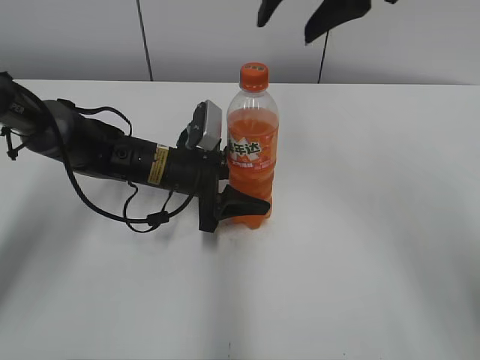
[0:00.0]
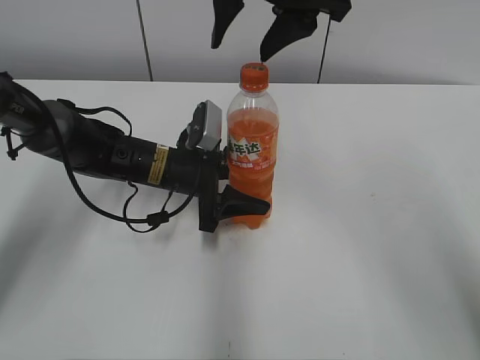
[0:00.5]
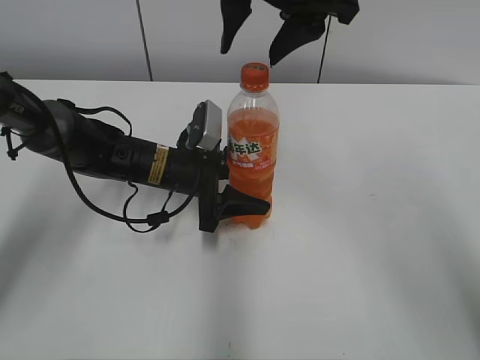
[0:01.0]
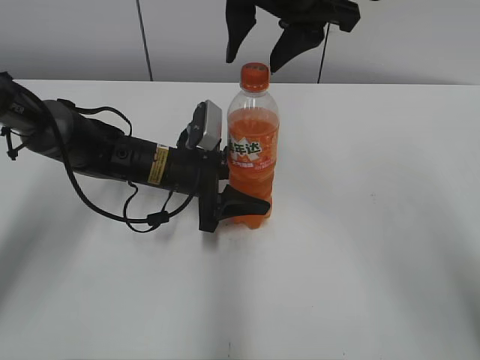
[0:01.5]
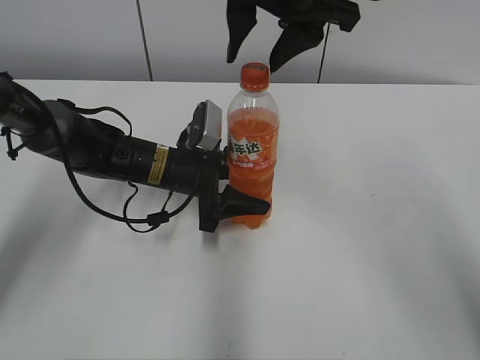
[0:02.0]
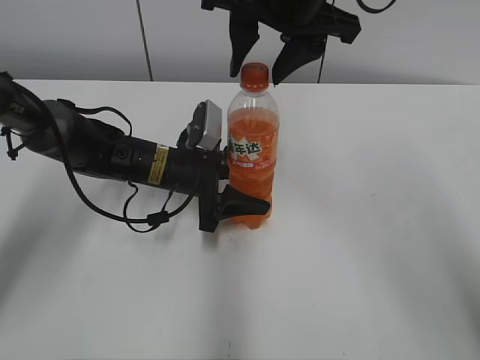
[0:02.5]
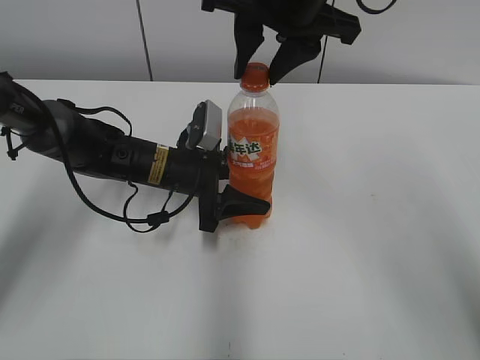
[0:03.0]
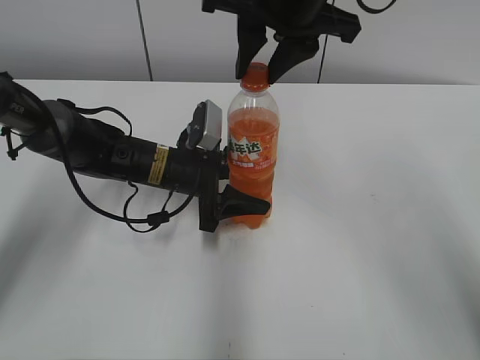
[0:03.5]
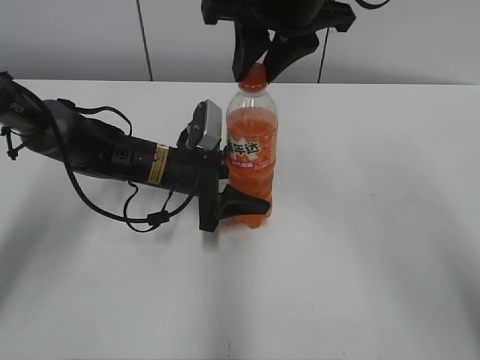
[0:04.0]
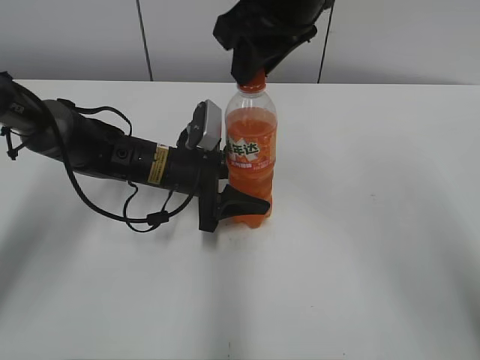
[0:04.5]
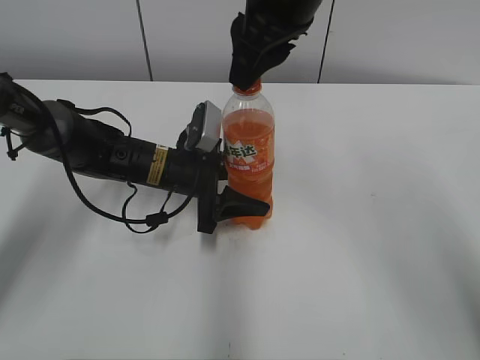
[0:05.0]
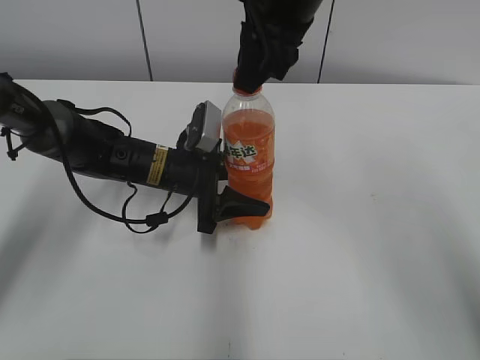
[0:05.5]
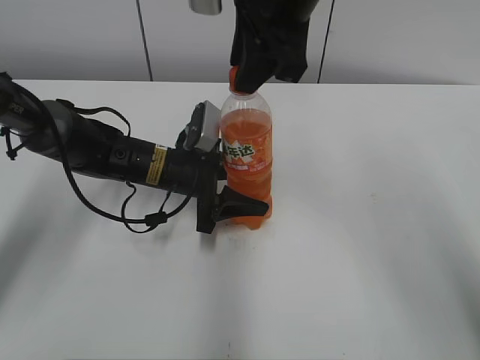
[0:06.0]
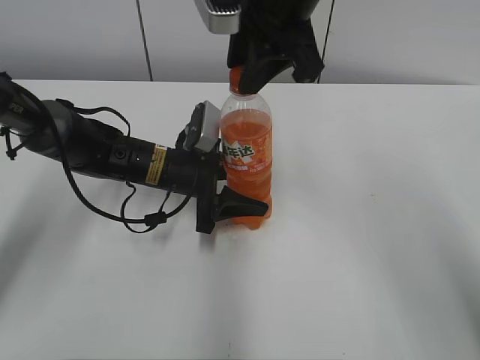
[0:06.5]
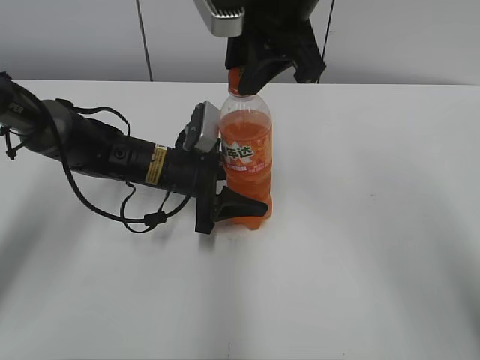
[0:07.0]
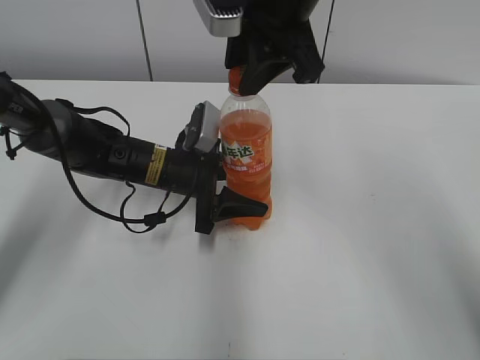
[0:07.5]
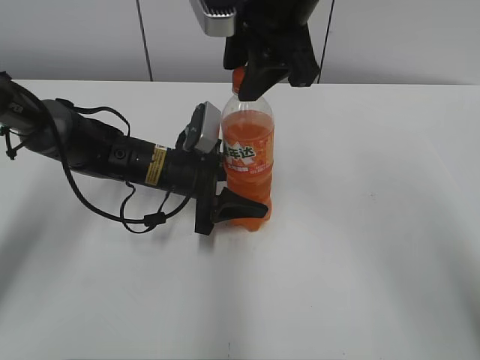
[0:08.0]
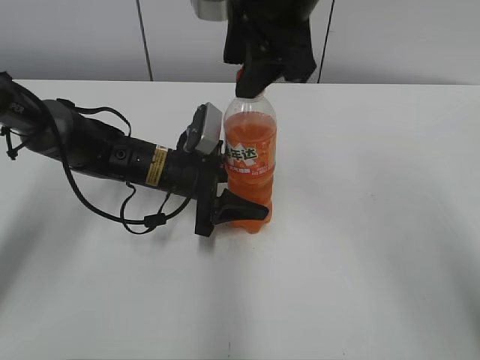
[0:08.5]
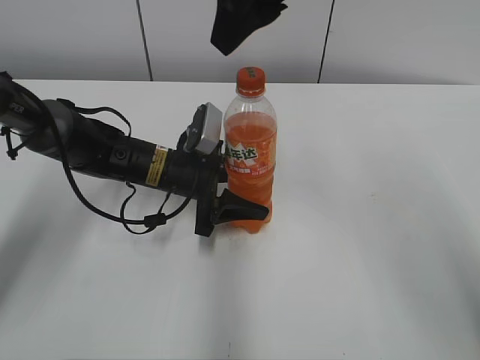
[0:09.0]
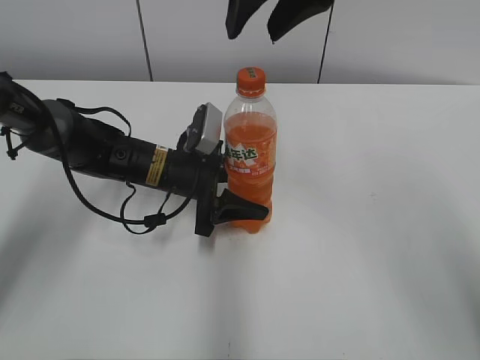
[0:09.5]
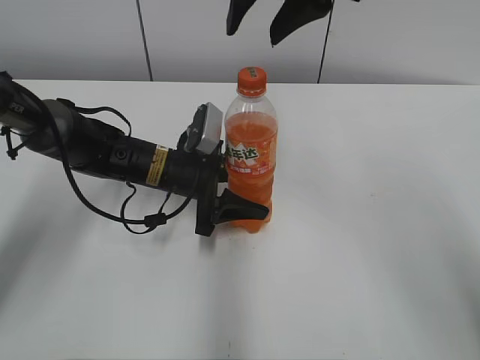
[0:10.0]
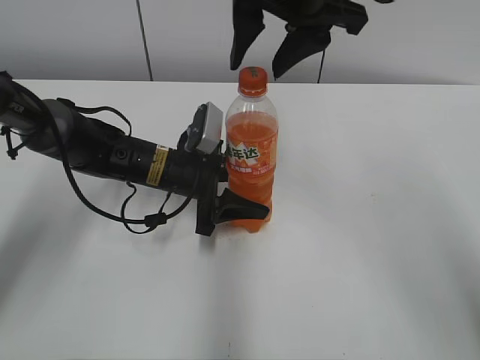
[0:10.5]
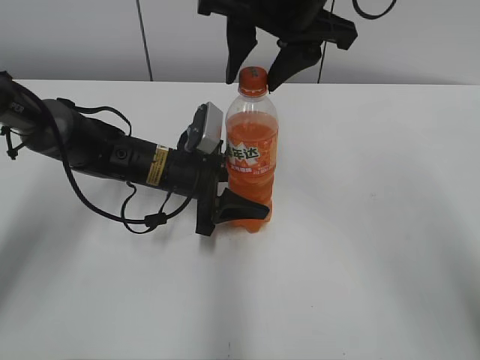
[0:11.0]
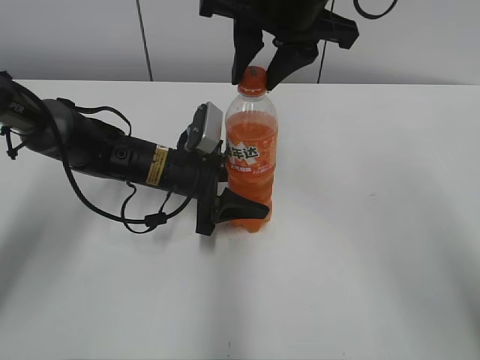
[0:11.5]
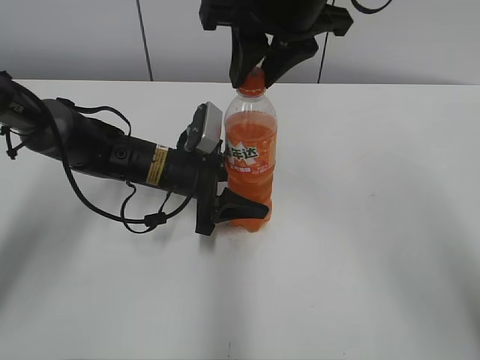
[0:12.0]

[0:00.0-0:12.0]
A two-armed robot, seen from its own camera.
0:00.0 to 0:02.0: The right gripper ends up some 5 cm from where it was.
0:02.0 to 0:04.0: The right gripper closes.
0:06.0 to 0:08.0: The right gripper opens.
0:10.0 to 0:12.0: The right gripper closes its fingers.

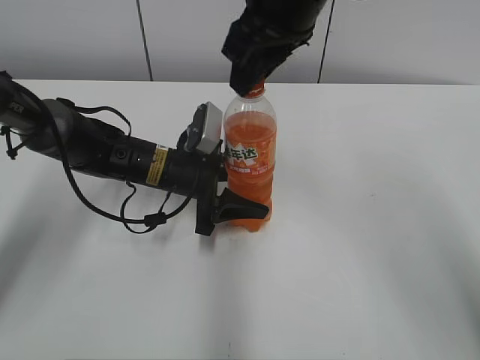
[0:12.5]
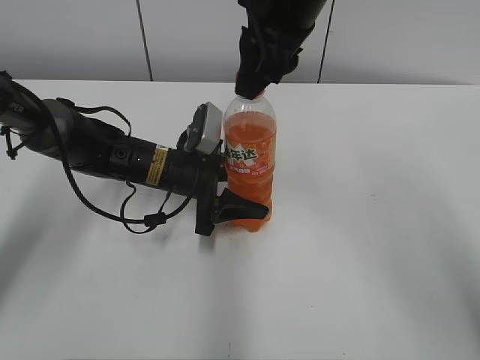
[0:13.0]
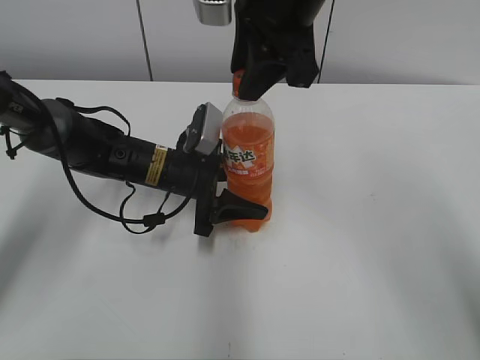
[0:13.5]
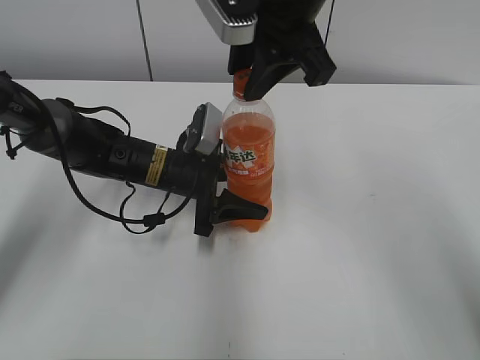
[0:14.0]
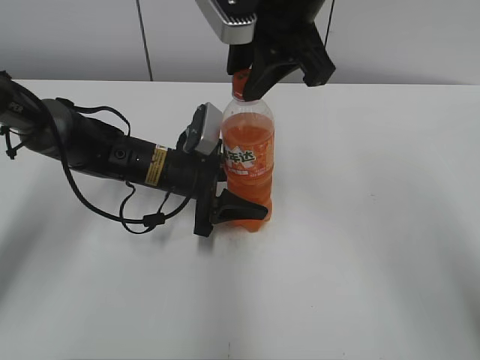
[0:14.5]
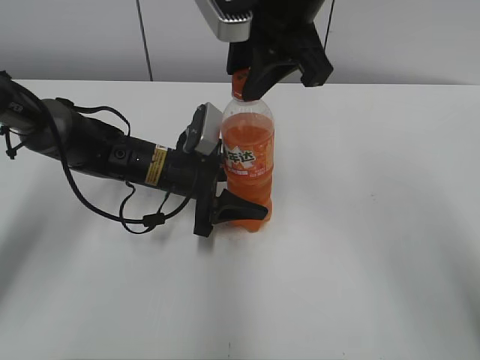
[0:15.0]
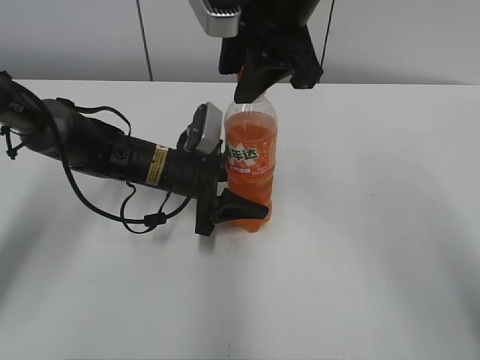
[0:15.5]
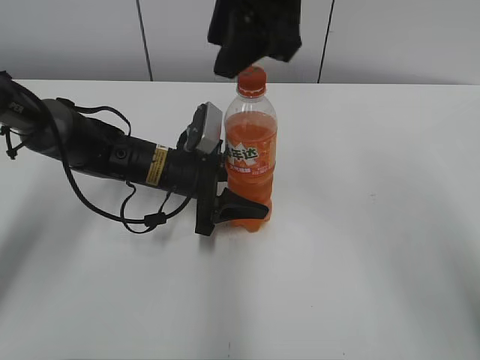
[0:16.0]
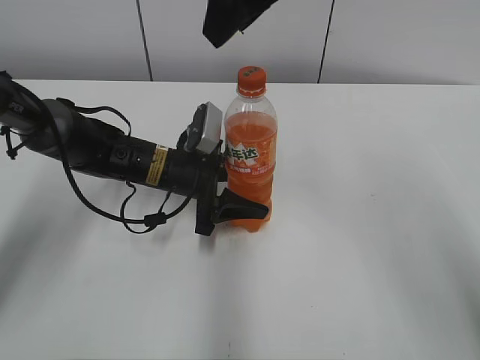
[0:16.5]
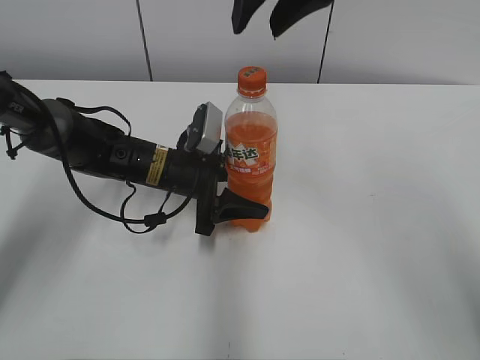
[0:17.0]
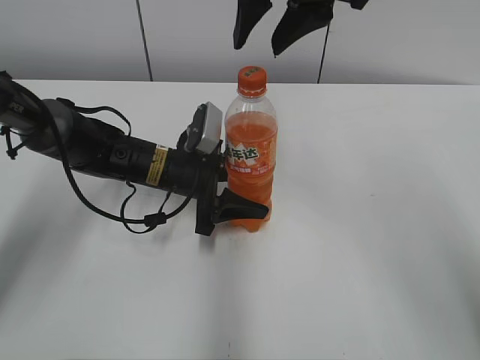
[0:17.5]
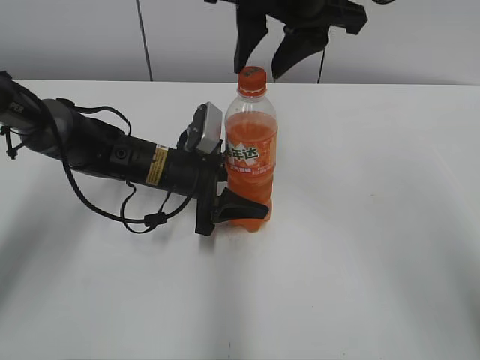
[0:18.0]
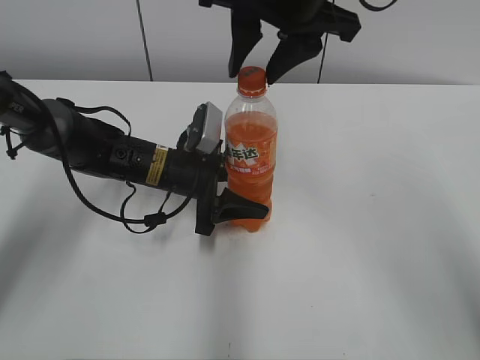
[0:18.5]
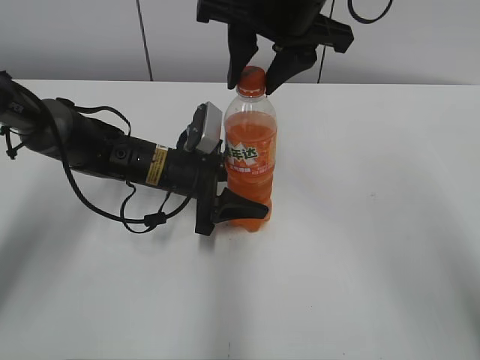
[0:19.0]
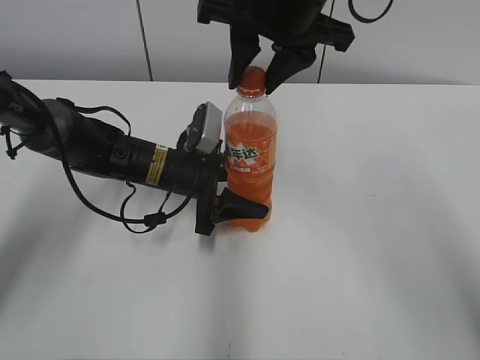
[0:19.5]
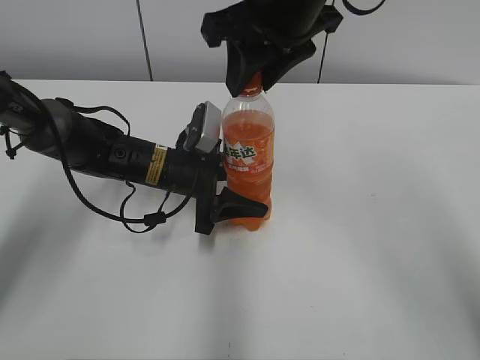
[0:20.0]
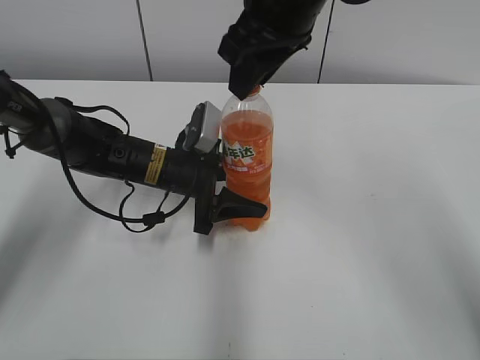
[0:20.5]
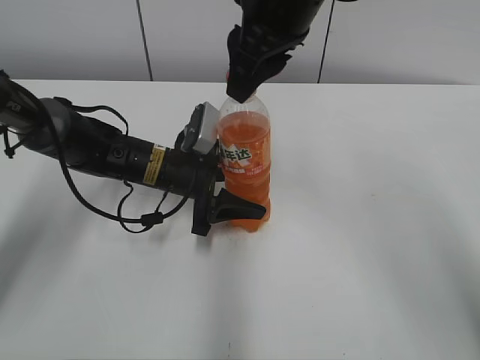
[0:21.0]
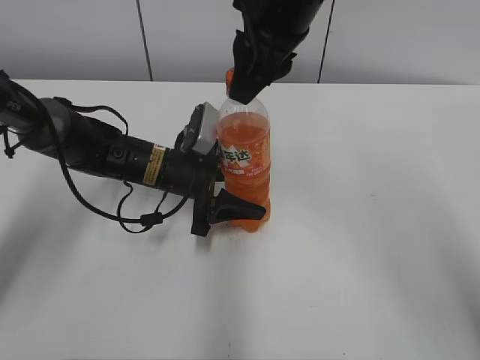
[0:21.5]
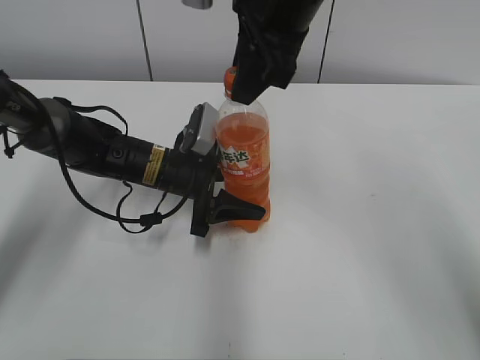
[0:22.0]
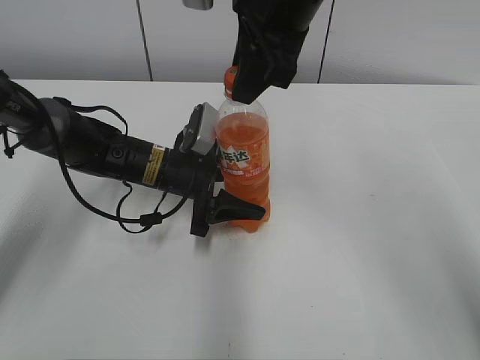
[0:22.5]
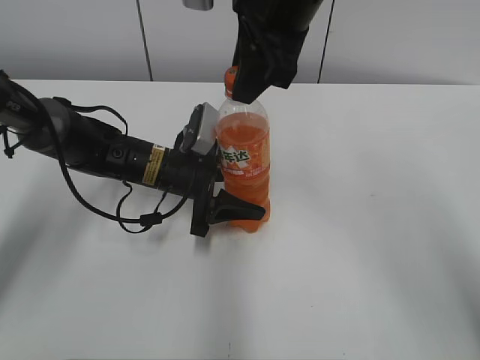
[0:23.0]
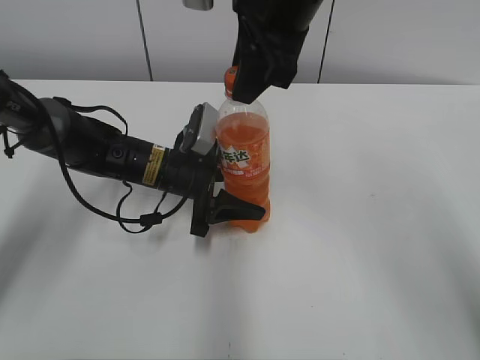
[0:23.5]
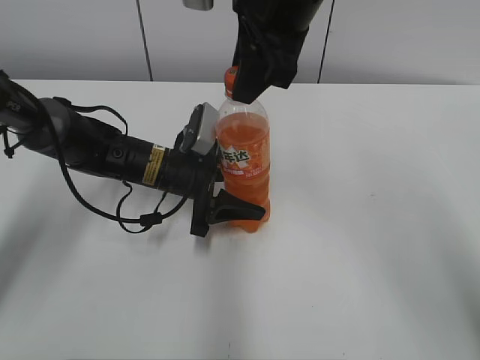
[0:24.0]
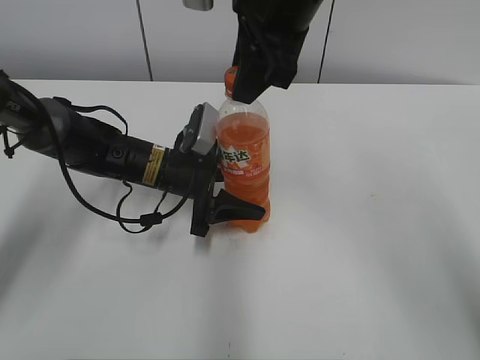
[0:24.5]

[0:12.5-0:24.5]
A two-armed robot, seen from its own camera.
0:14.5 to 0:16.5: The right gripper opens.
0:22.5 to 0:24.5: Neither gripper changes place.

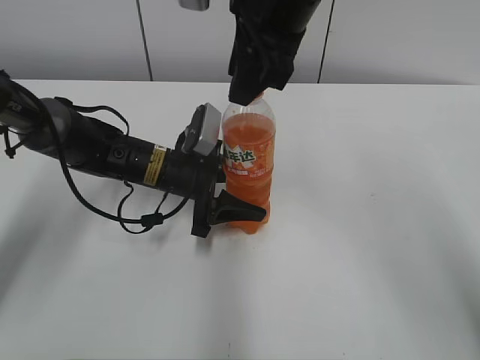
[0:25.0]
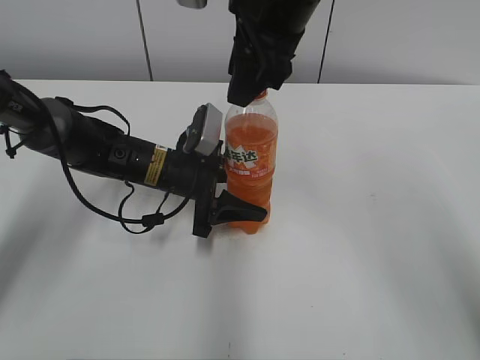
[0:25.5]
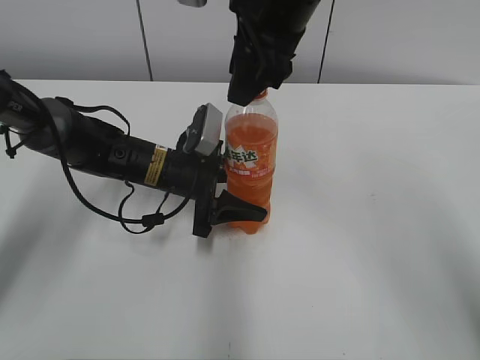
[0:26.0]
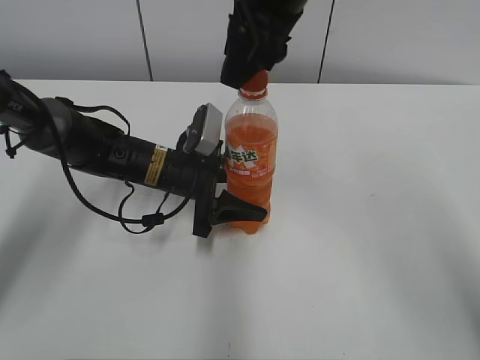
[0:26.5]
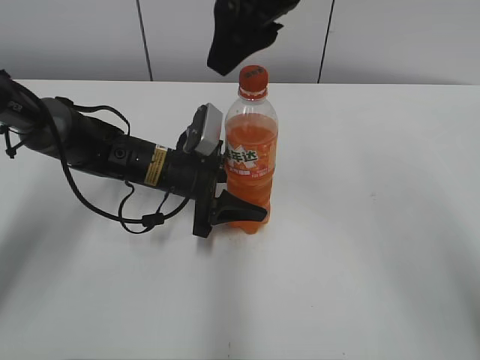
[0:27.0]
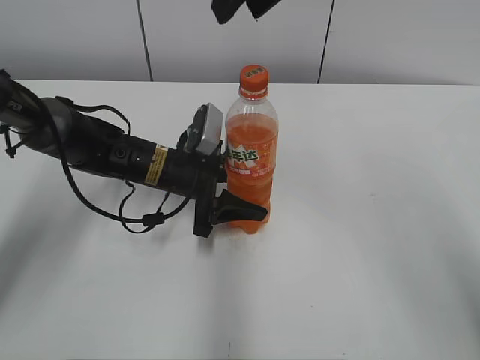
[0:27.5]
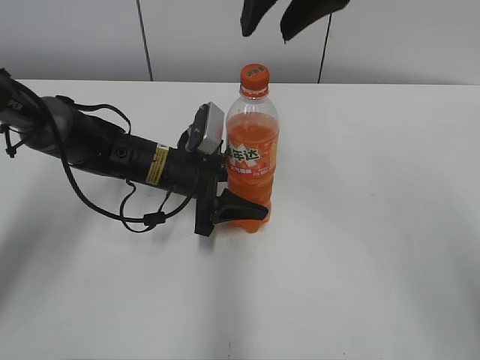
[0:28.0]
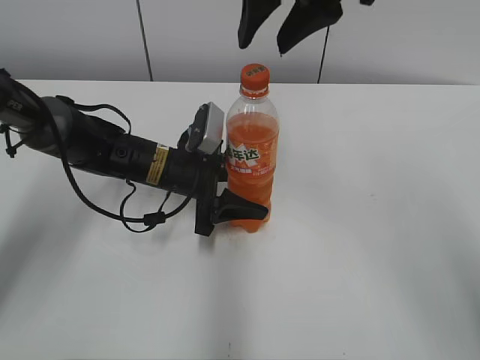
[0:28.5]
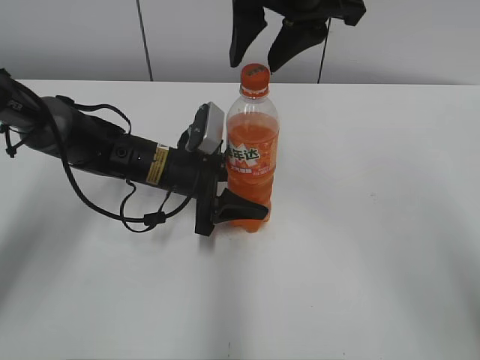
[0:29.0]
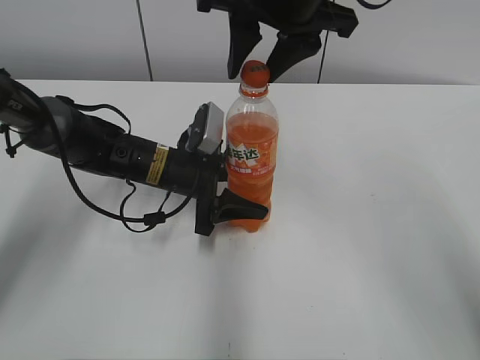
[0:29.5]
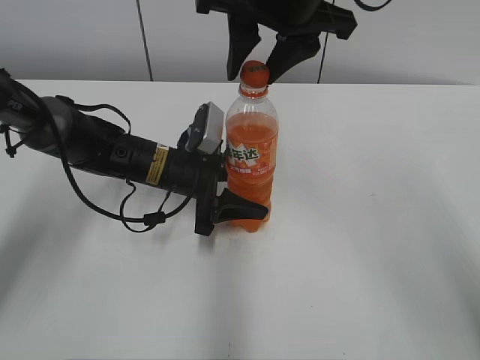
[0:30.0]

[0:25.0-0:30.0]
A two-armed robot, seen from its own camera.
0:25.0 to 0:27.5: The right gripper goes roughly 5 cm upward.
